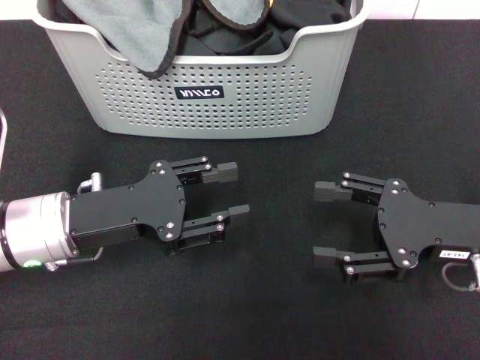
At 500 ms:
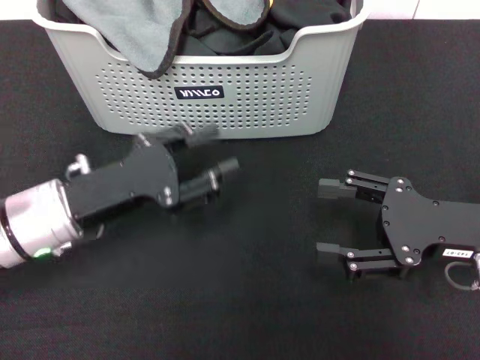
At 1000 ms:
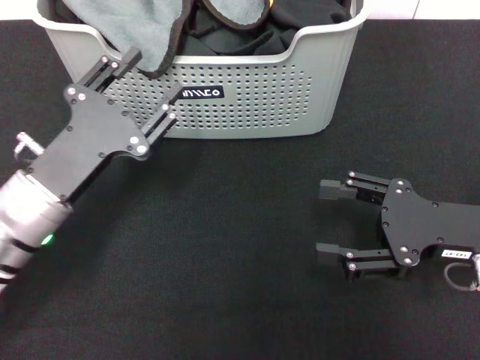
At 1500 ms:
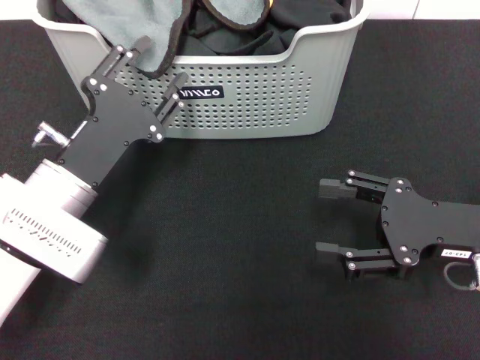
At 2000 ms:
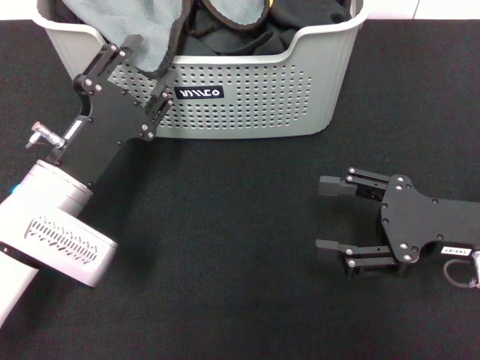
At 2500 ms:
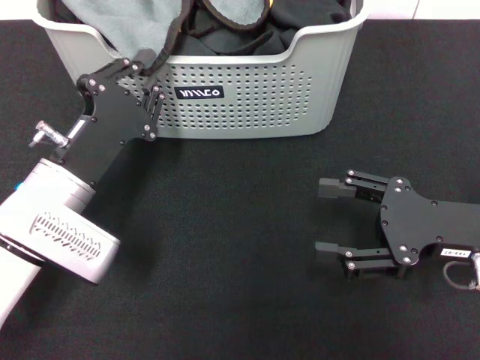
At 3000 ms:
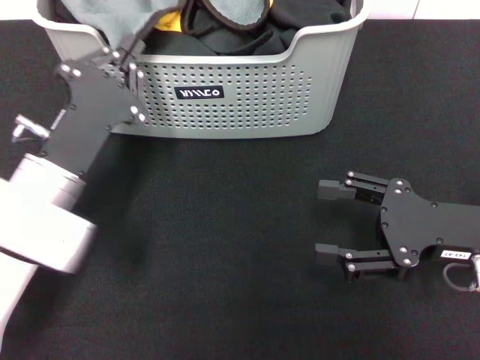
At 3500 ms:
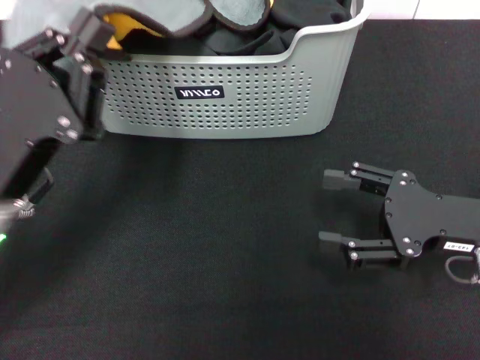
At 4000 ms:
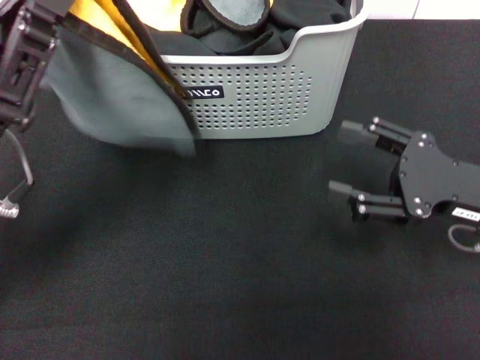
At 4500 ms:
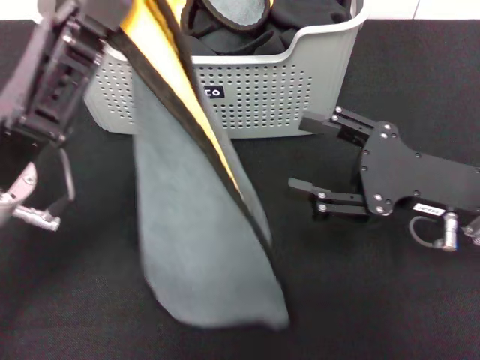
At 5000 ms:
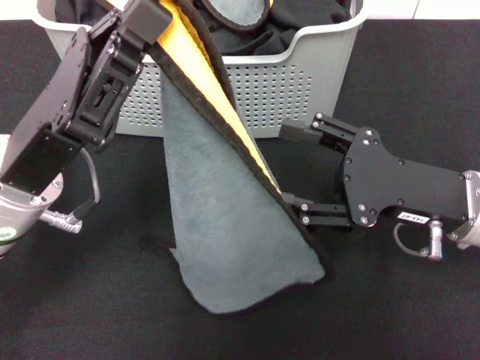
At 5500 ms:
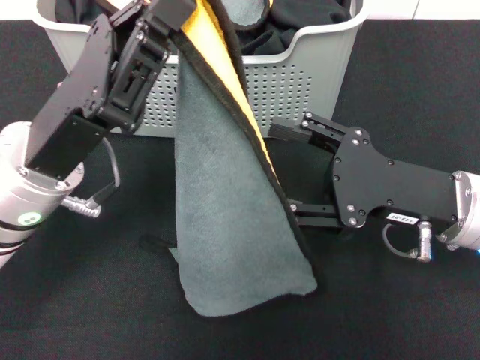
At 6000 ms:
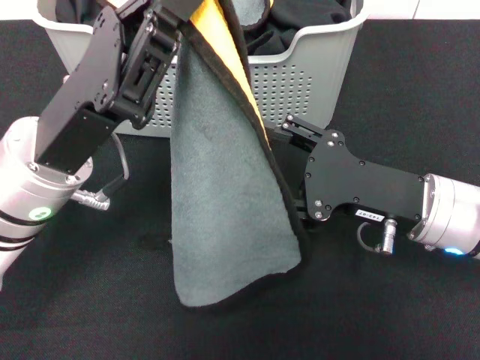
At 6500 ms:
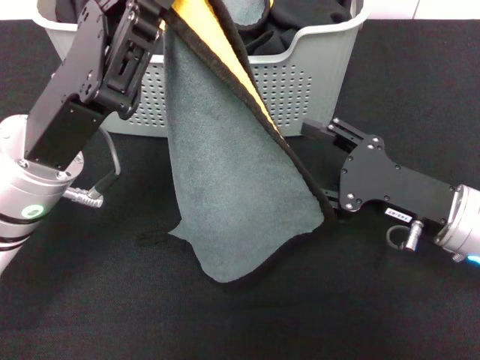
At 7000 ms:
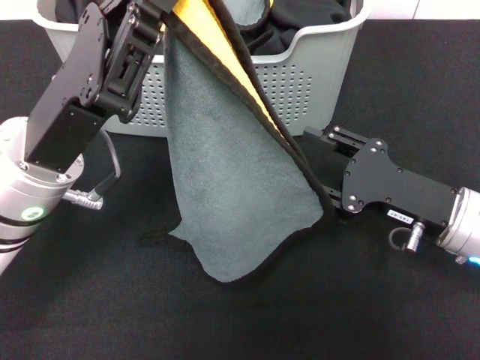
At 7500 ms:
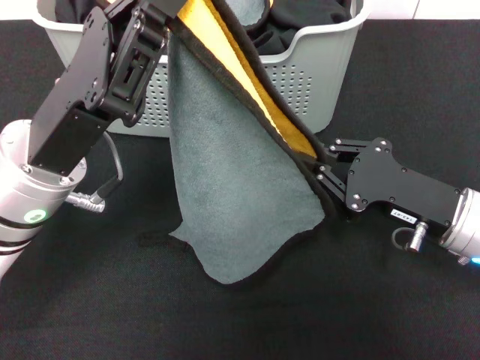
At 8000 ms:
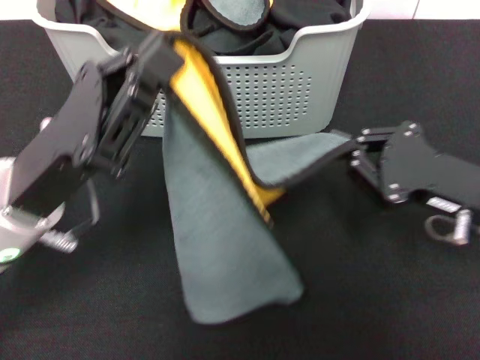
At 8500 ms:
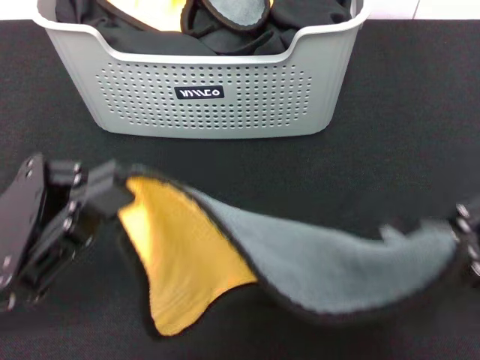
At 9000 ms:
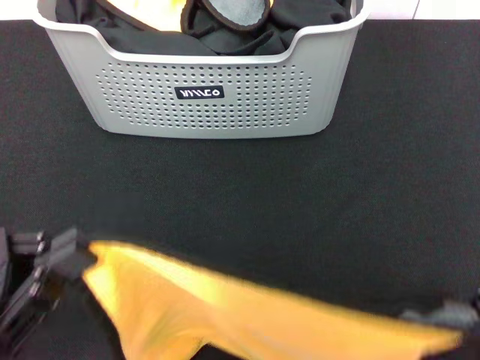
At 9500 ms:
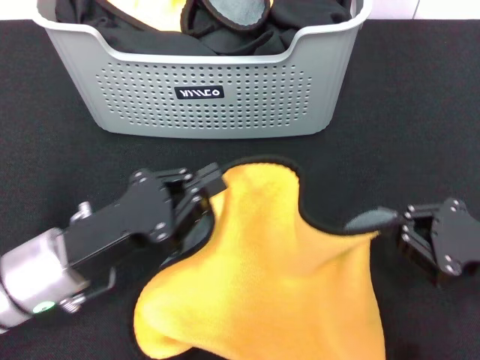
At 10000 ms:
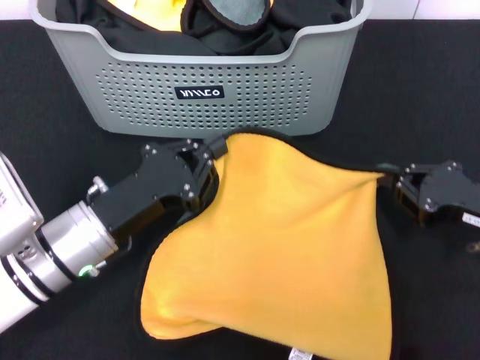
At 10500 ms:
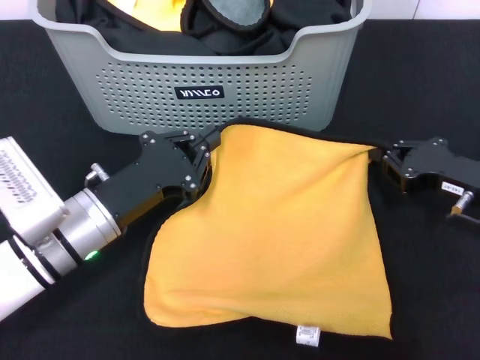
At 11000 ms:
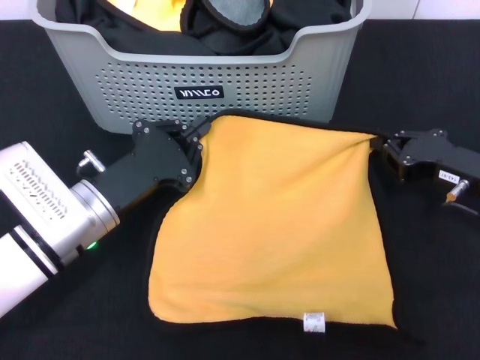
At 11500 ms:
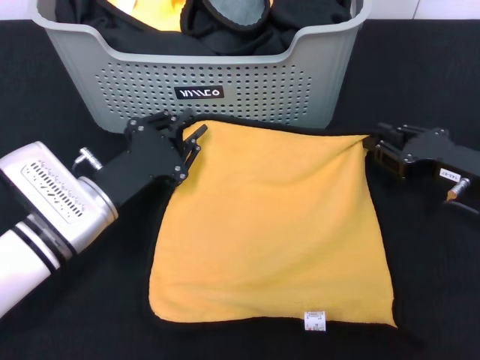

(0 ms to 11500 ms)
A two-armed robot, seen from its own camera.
Task of the whole recording: pick up the towel from the storage box and lay it flat on the black tablecloth.
Step, 0 ms - 2500 ms: Pick up a towel with the left gripper.
Step, 3000 ms - 7500 ms: Spread the towel flat with the left gripper.
2000 ms - 4000 ms: The left gripper shifts approximately 10 cm upward, and closes up.
4000 ms - 6000 ms: The left gripper heads to the right, covering approximately 5 cm. Meanwhile the right gripper goes about 10 cm to the left.
6000 ms - 7500 ms: The right gripper closes.
7500 ms - 9500 ms: The right gripper moves to the right, some 5 cm. The left gripper is displaced downward by roughly 10 cm, and goes backward and returns, some 10 cm each way.
9500 ms - 11500 ms: The right gripper is displaced forward by about 10 cm, while the left gripper is displaced forward by approximately 5 cm.

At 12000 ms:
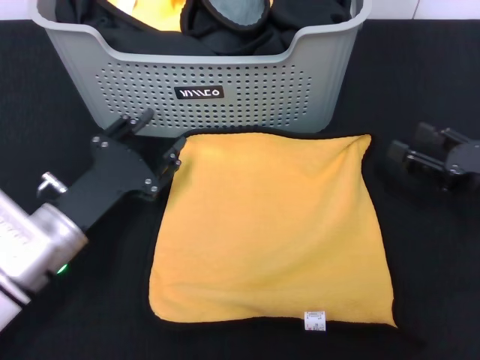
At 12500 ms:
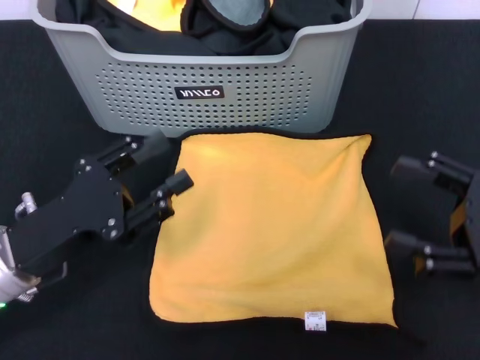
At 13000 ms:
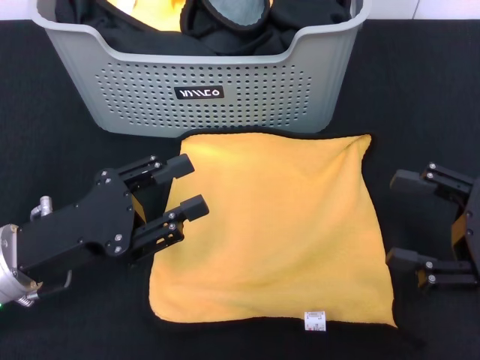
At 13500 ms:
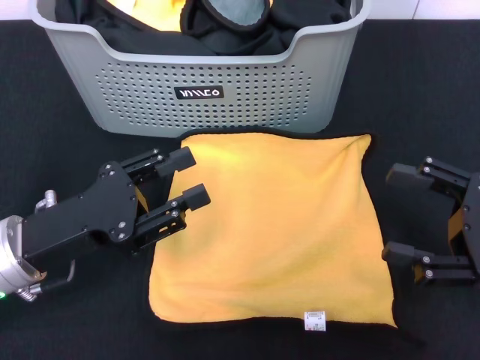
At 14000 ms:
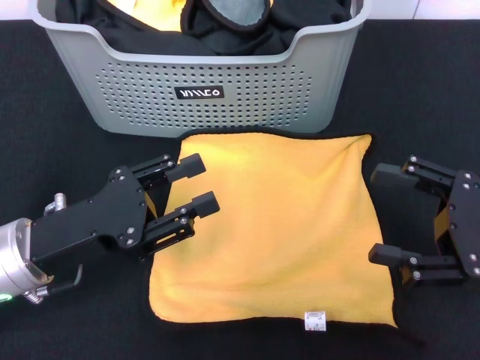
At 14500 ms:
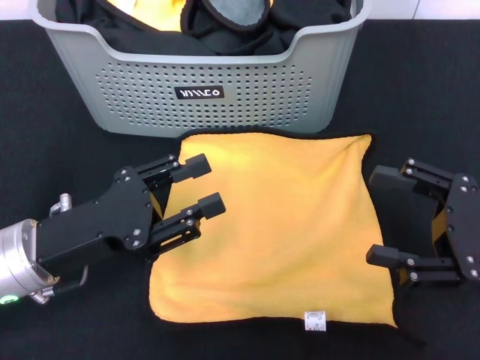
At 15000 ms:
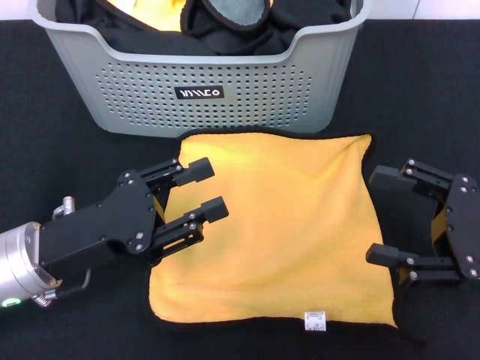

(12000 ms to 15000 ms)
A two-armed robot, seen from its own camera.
Task of the whole recording: pick up the towel from the storage box and lay it flat on the black tablecloth.
12000 ms - 13500 ms: The left gripper is displaced upward by some 5 cm. Meanwhile the right gripper is displaced backward by approximately 5 cm, and opens its fingers.
13500 ms - 15000 ms: Both grippers stay put.

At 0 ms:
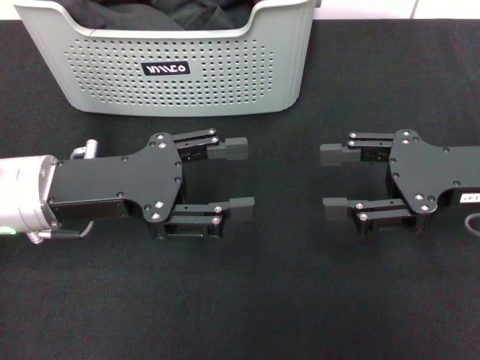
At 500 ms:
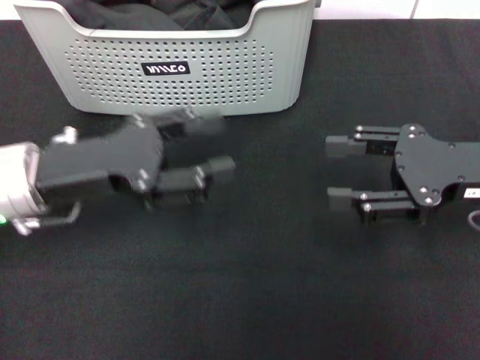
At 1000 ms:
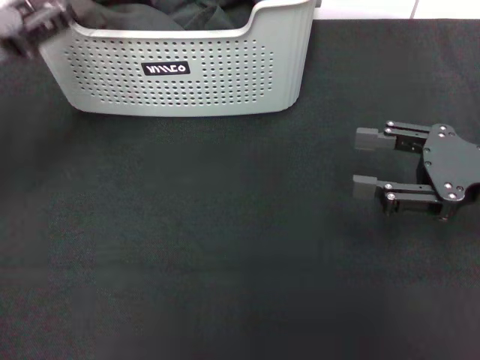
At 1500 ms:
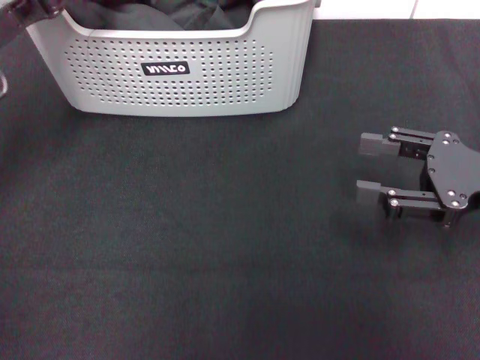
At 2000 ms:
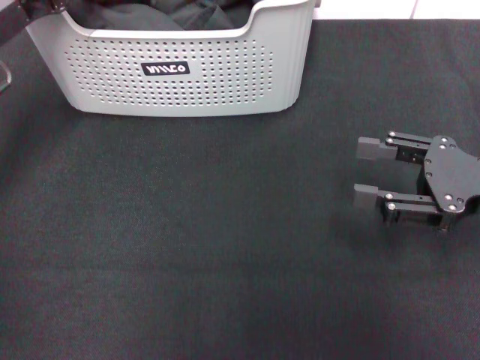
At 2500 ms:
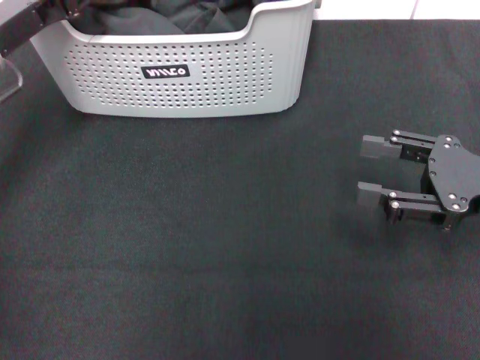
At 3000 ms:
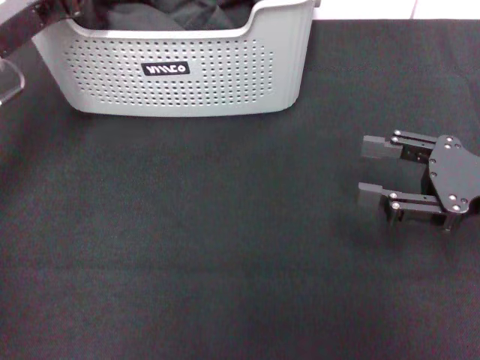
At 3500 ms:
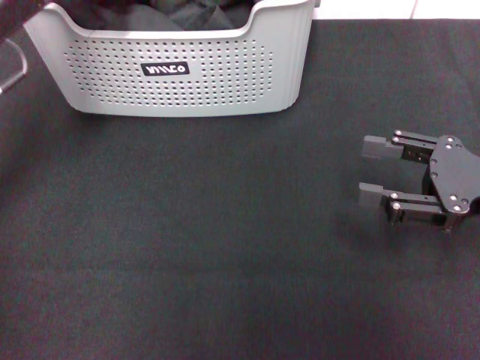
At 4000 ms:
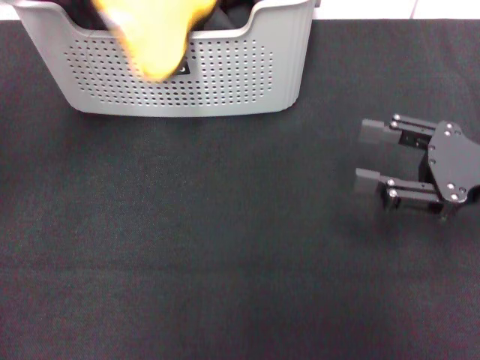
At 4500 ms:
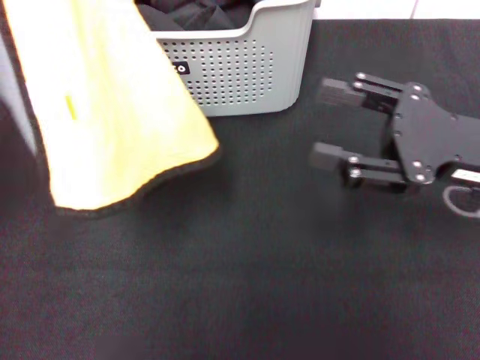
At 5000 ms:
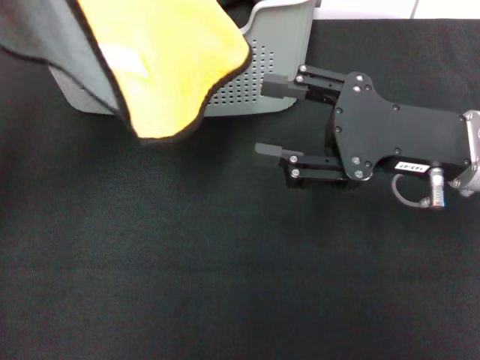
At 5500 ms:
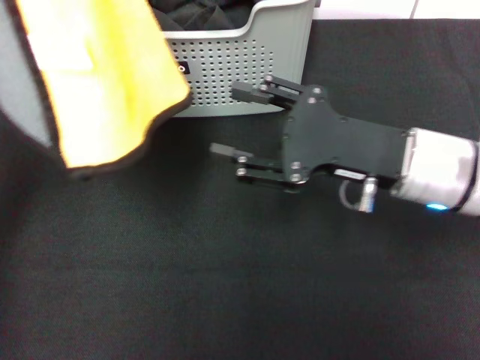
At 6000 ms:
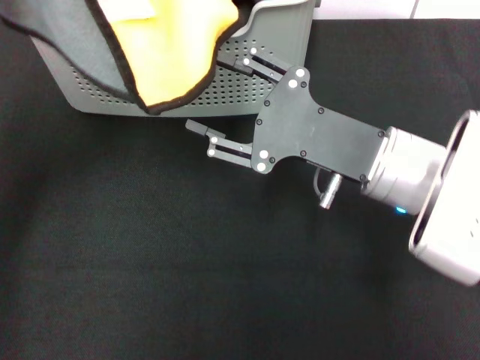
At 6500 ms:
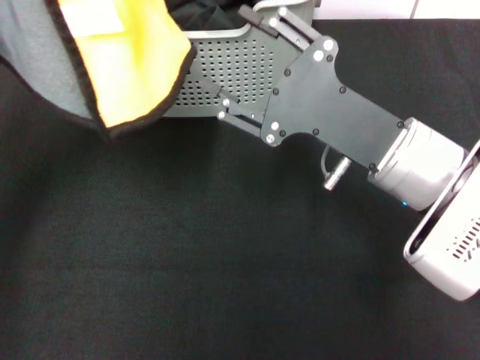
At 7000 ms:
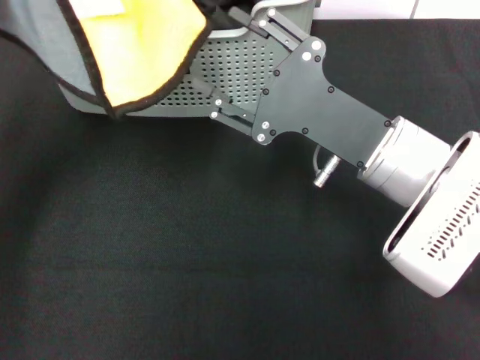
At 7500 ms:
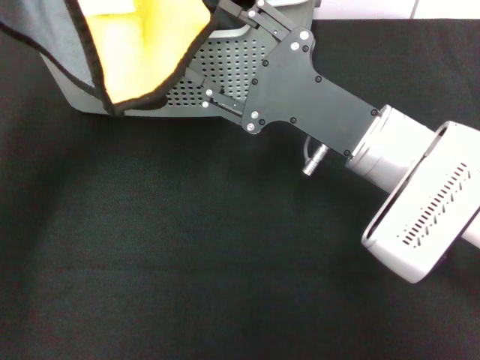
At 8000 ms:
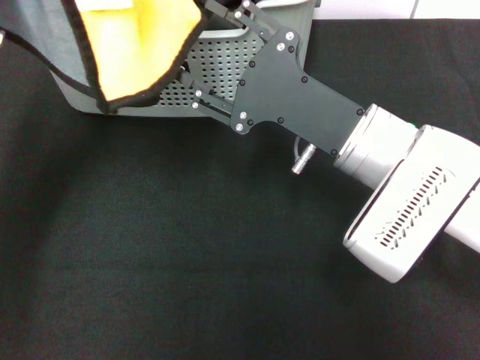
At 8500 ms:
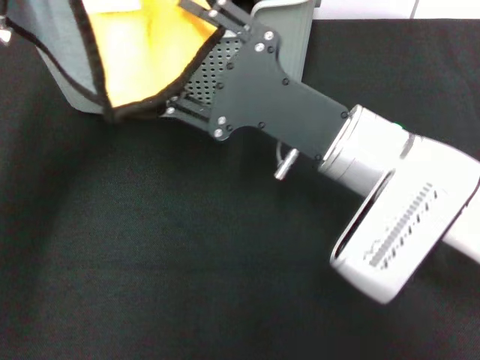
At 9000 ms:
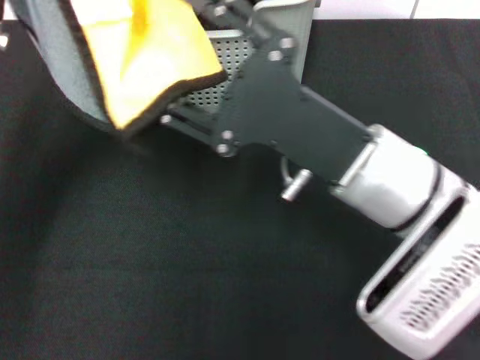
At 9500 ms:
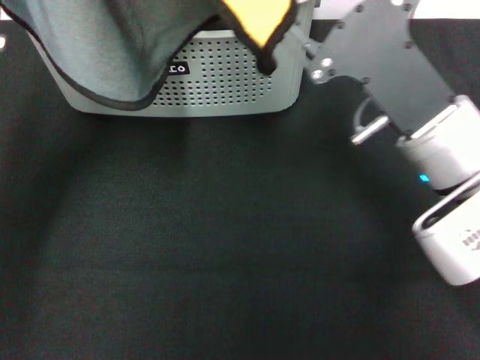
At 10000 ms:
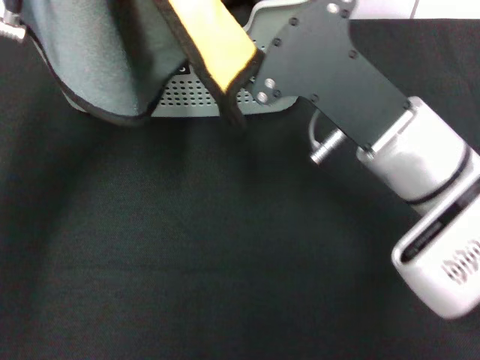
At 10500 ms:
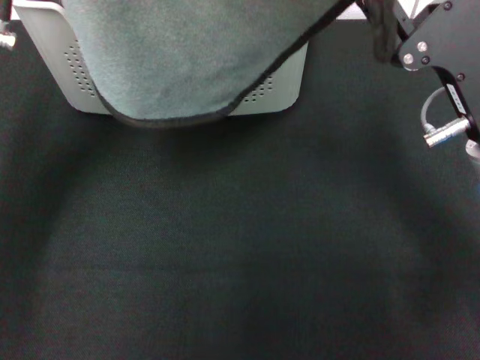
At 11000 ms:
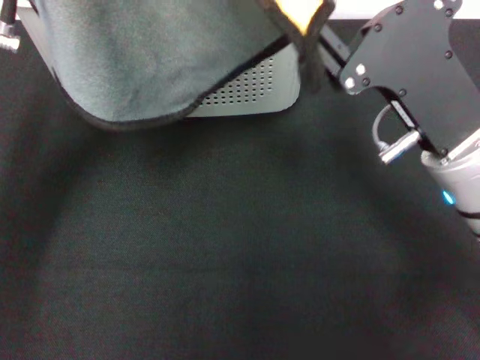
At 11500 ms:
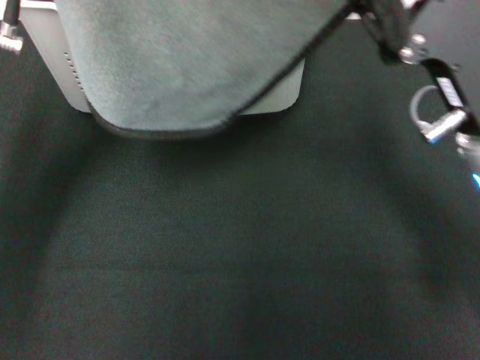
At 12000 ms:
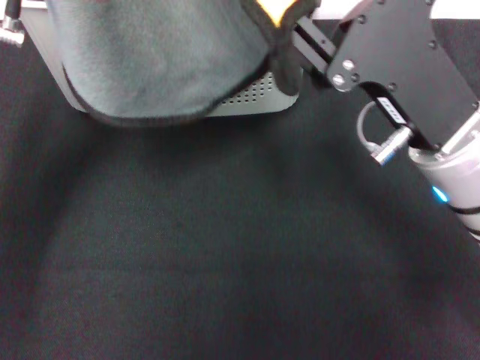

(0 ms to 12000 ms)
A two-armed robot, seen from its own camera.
Task of the whole recording: pick up the towel from the storage box and lay it flat on the black tablecloth.
Step, 0 ms - 2500 ms: Pick up a towel with the left gripper.
0 ms - 2000 ms: The left gripper goes roughly 10 cm forward and to the left.
2000 ms - 4000 ms: The left gripper heads upward and backward, covering approximately 10 cm, and closes its fingers.
4000 ms - 6000 ms: The left gripper moves to the right, some 5 cm, while the right gripper travels to the left by approximately 15 cm.
